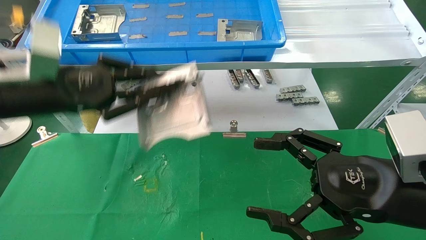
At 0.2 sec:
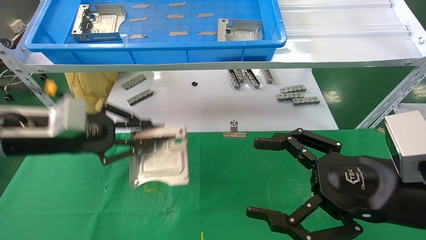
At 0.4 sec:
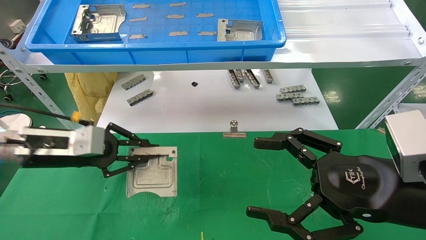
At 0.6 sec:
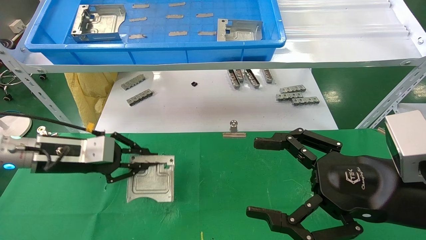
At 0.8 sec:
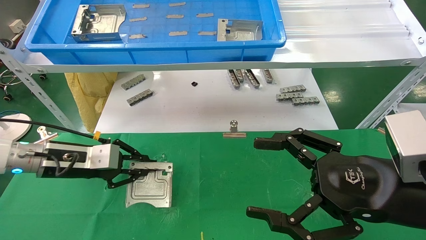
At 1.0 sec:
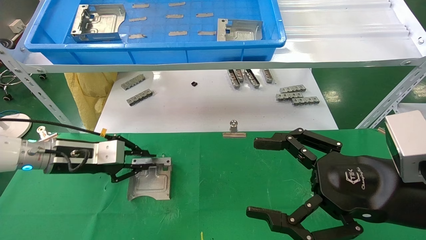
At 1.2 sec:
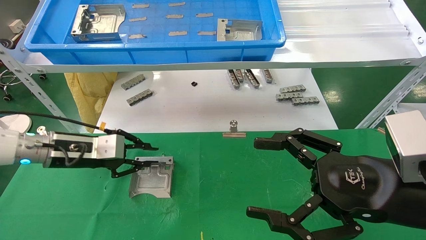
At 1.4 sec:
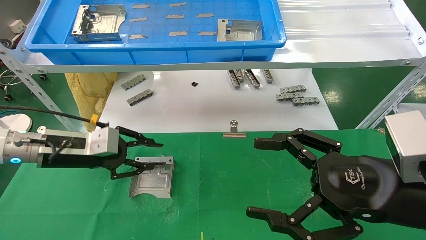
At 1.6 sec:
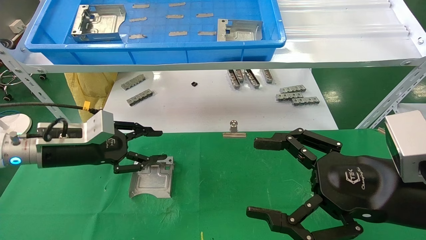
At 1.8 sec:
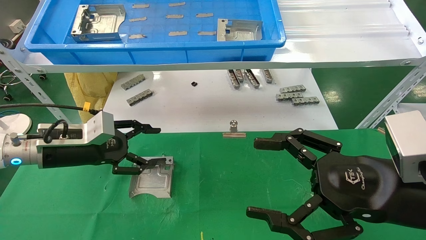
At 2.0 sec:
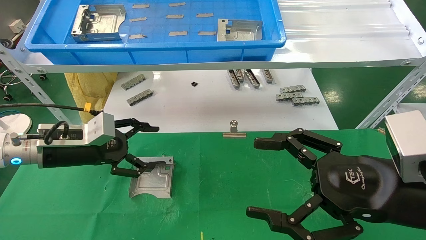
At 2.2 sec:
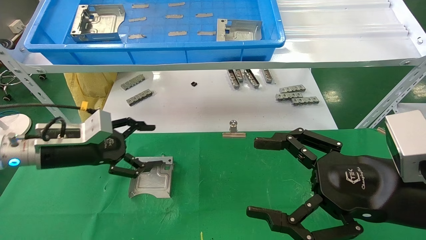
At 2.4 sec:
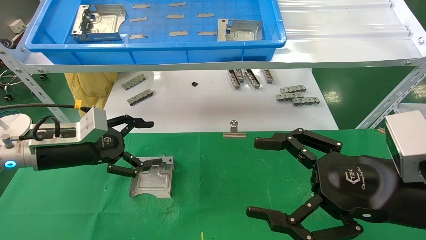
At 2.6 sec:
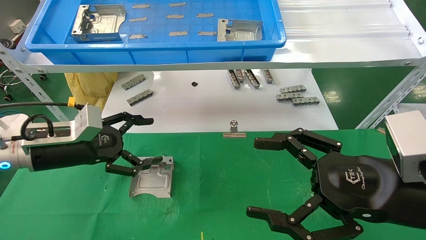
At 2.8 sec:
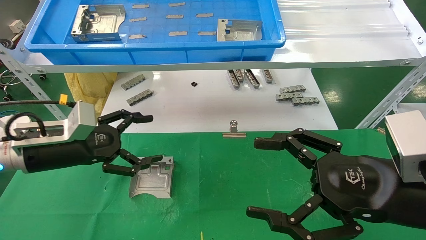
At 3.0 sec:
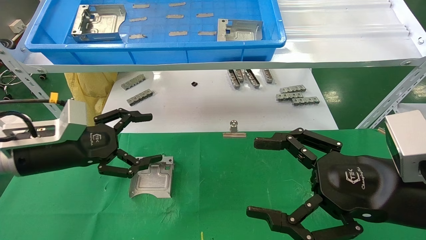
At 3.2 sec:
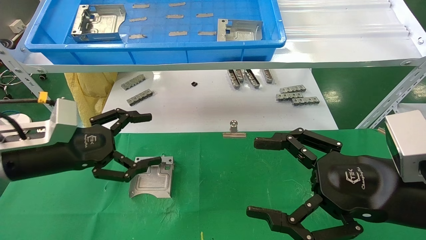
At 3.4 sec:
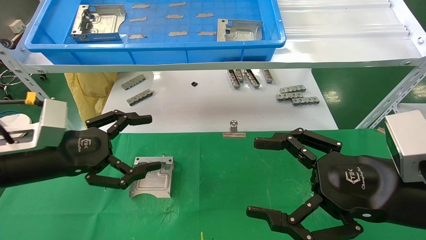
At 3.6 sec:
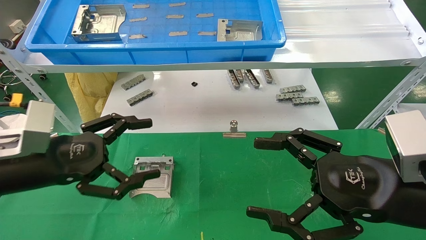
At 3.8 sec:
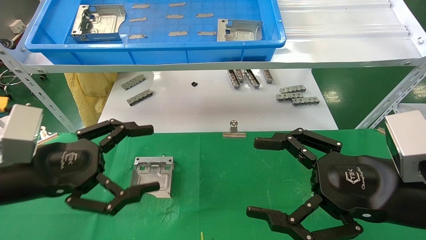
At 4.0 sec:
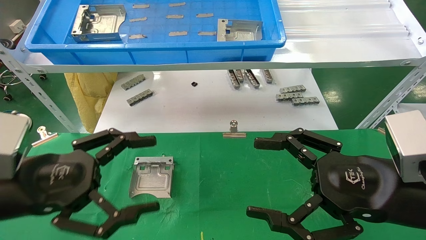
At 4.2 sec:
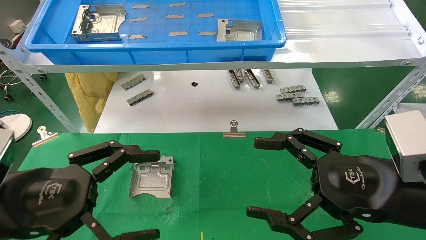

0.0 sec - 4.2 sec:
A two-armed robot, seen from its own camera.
Task of the whole recording: use the mechanical arm to pick up the parts and place them on the table.
Step, 0.0 sec - 1.0 sec: Place the hard drive bracket into the box.
0.0 sec - 1.4 sec: The left gripper is displaced downward by roughly 10 cm.
1.4 sec - 2.8 sec: The left gripper opens its fingers.
2.8 sec - 4.2 sec: The left gripper is displaced backward by some 15 cm.
